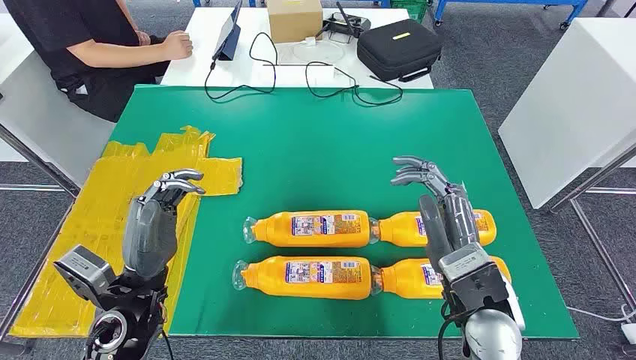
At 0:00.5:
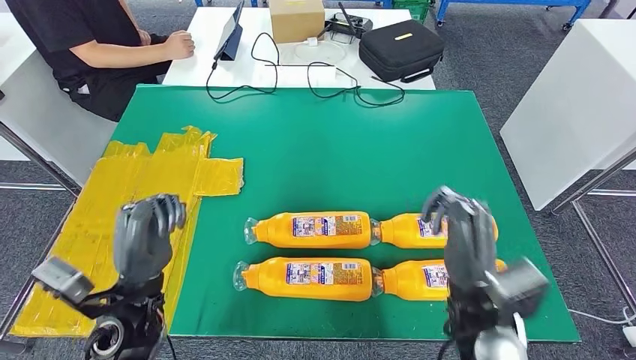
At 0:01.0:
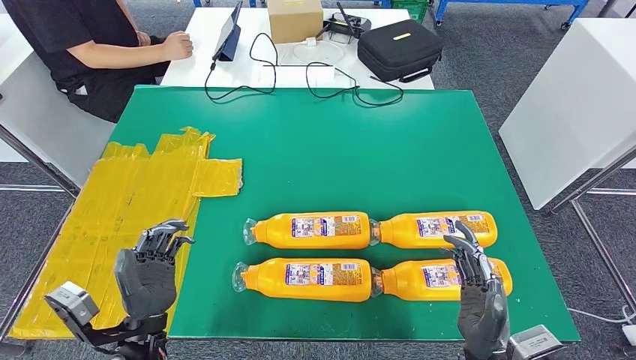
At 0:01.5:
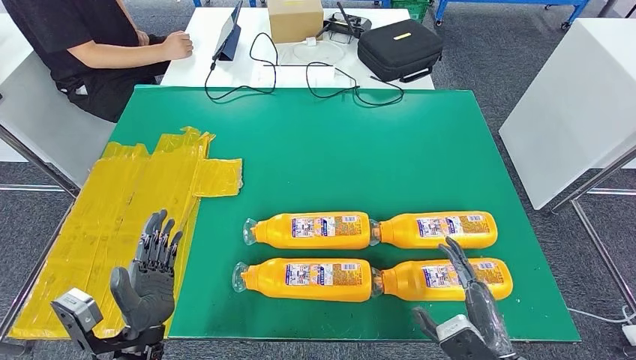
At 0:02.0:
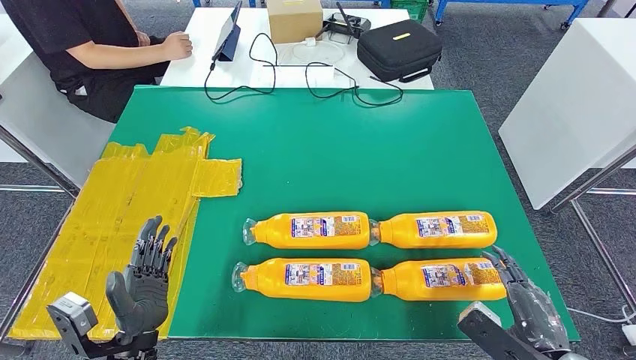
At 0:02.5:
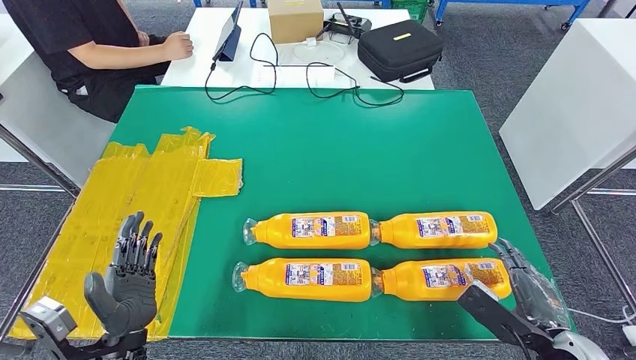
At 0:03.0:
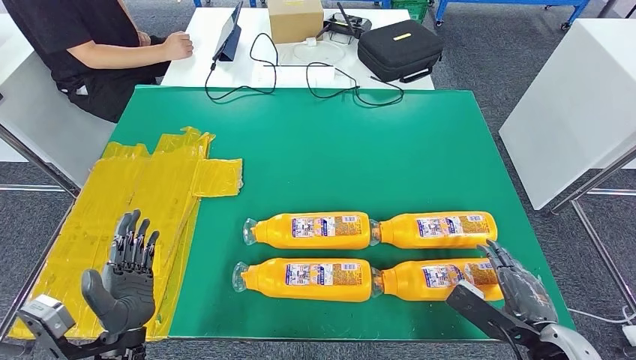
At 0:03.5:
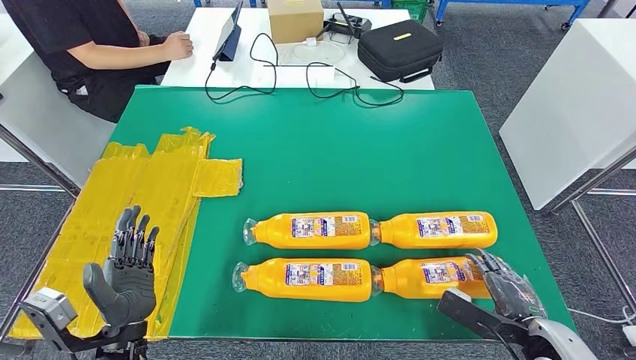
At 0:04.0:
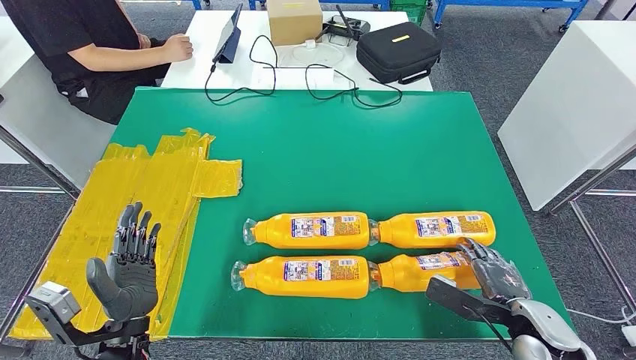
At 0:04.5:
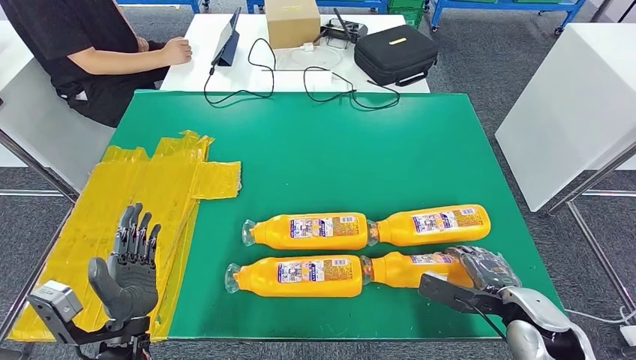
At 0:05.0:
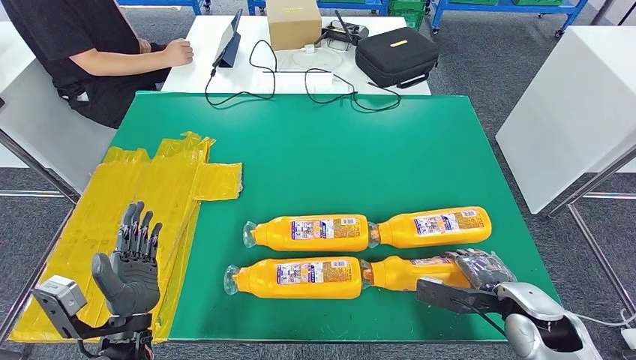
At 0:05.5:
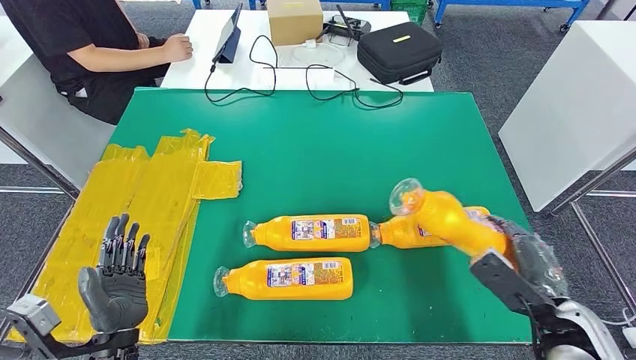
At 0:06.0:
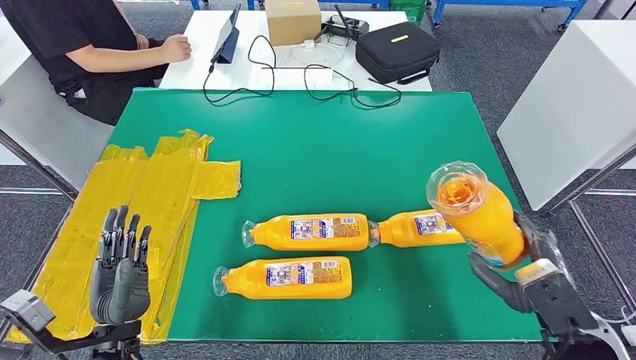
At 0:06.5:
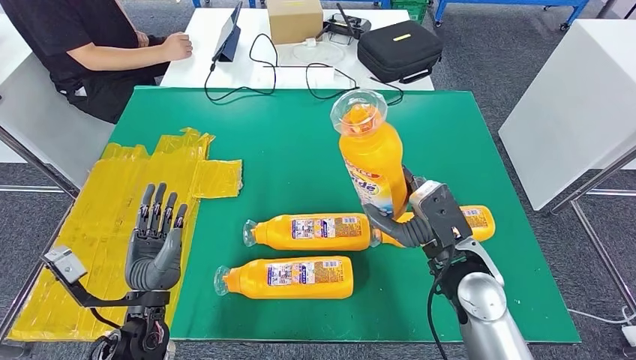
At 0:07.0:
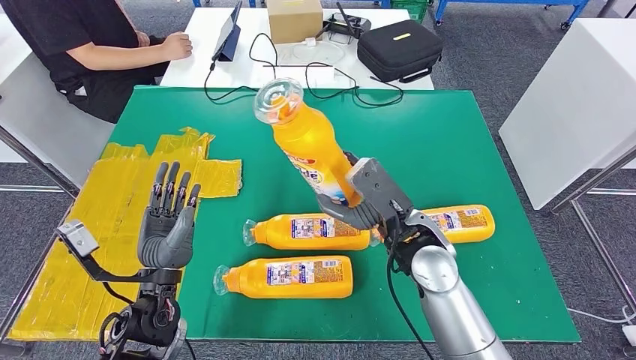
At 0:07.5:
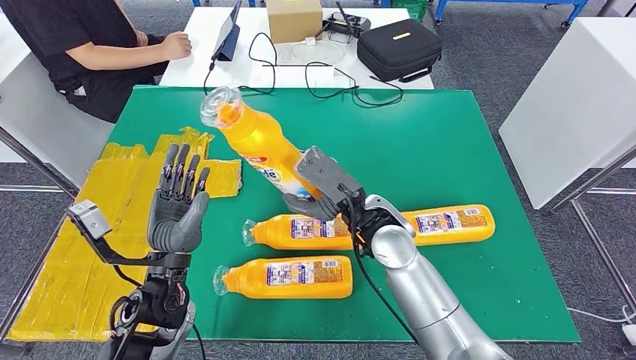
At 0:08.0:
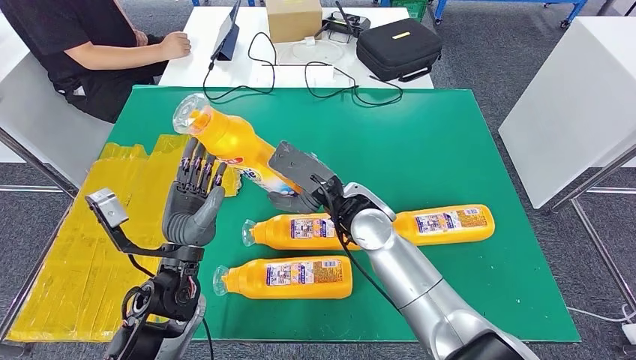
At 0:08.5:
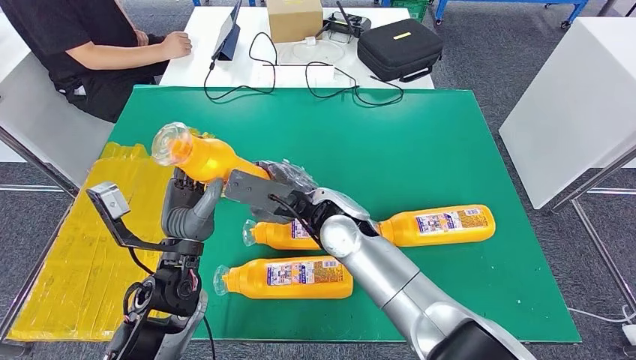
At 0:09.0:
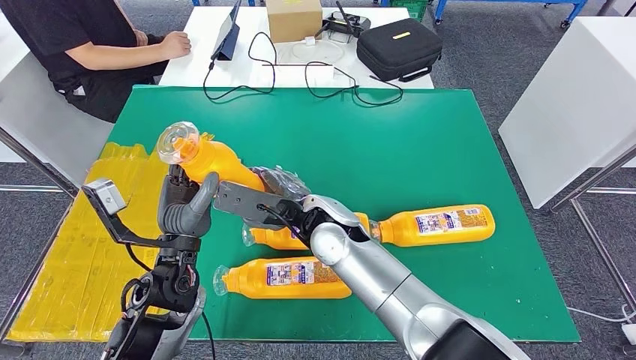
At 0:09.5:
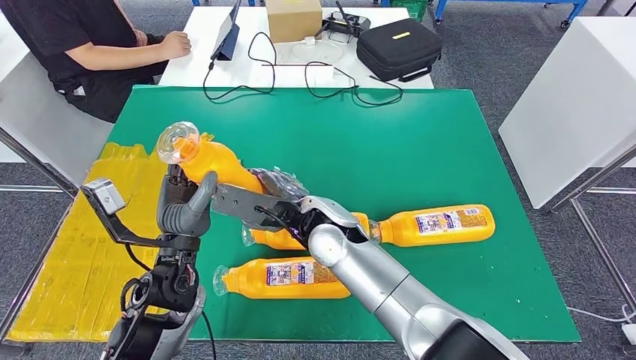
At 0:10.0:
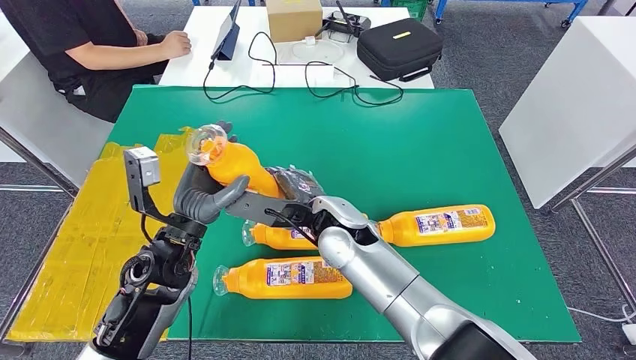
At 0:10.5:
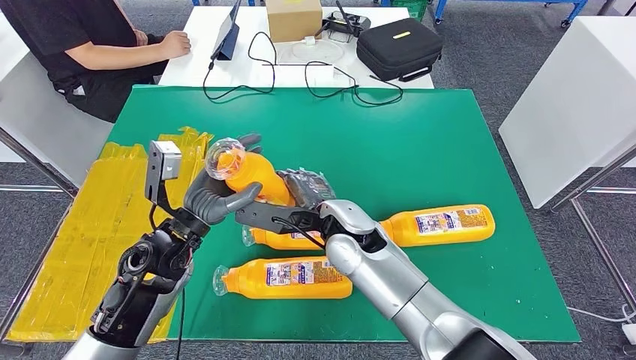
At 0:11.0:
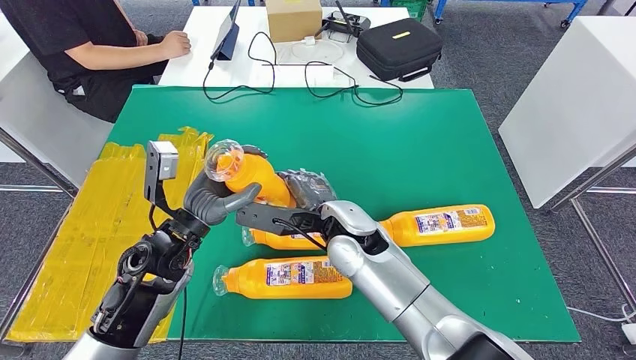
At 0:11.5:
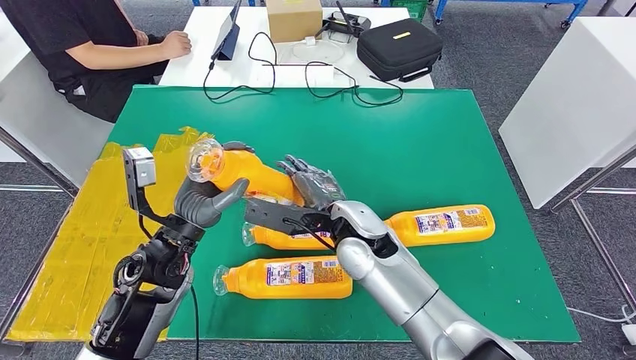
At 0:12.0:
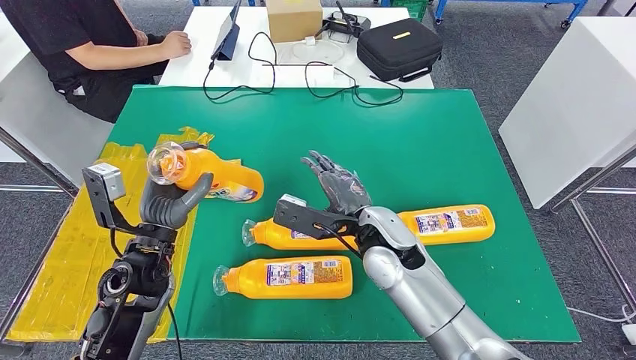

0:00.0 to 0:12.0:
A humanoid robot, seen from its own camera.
Step, 0:00.0 to 0:05.5: Take the fast-moving consumer goods bottle from the table.
0:02.0 to 0:04.0: The right hand moves forward, about 10 cm.
0:04.0 to 0:06.0: The right hand goes approximately 10 cm upward.
0:08.0 to 0:10.0: The right hand changes place by about 5 cm.
0:10.0 to 0:12.0: The right hand moves to the right, approximately 10 cm, while the left hand shifts by about 5 cm.

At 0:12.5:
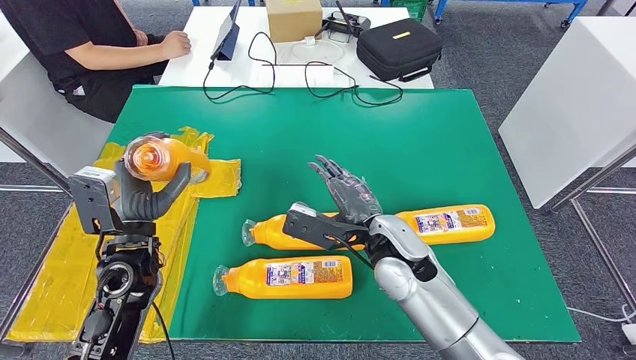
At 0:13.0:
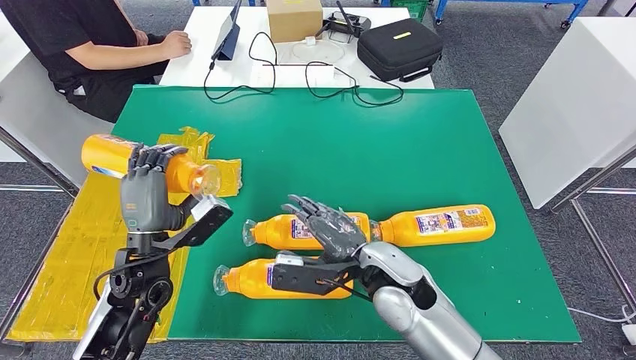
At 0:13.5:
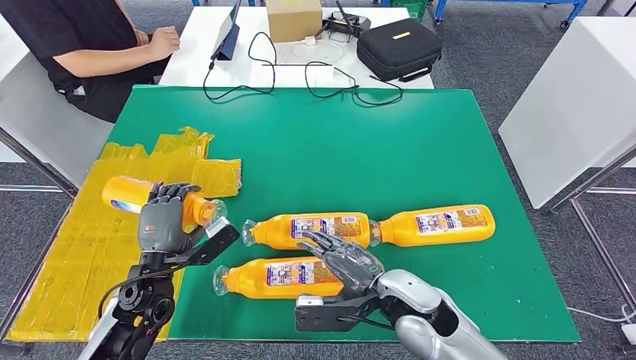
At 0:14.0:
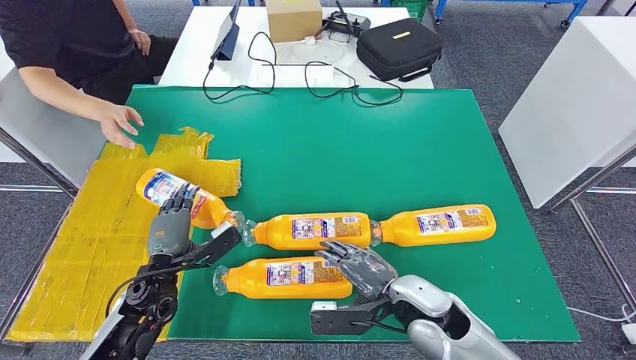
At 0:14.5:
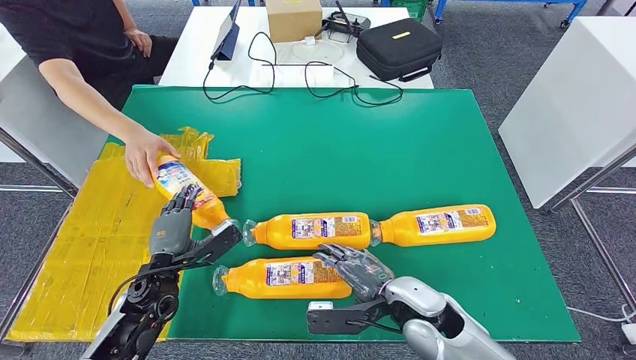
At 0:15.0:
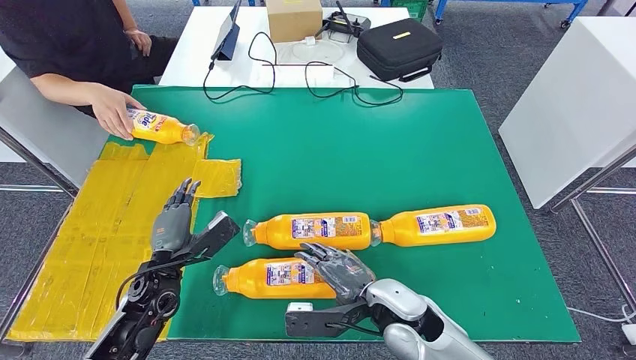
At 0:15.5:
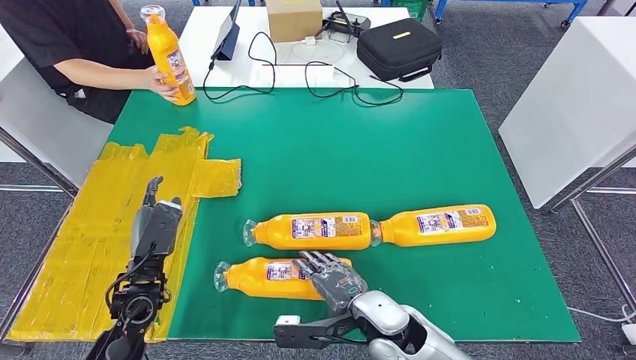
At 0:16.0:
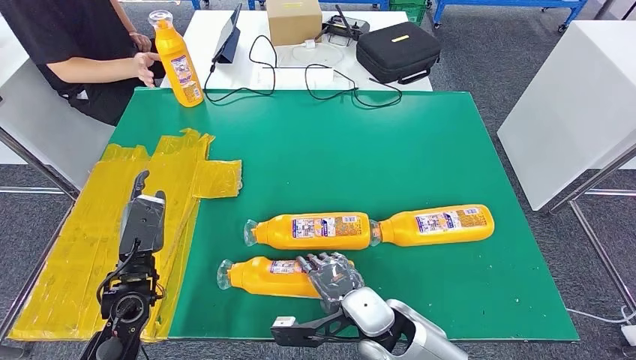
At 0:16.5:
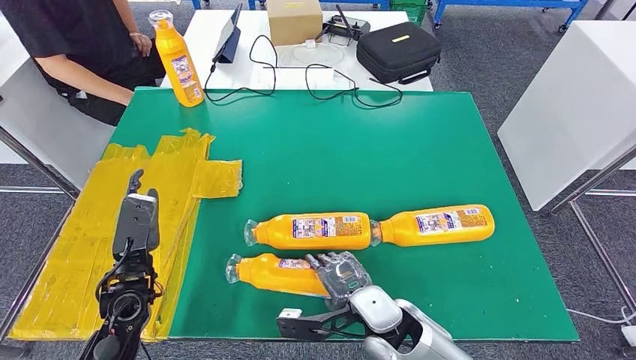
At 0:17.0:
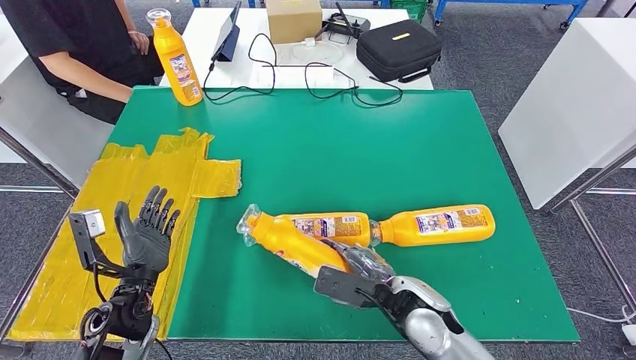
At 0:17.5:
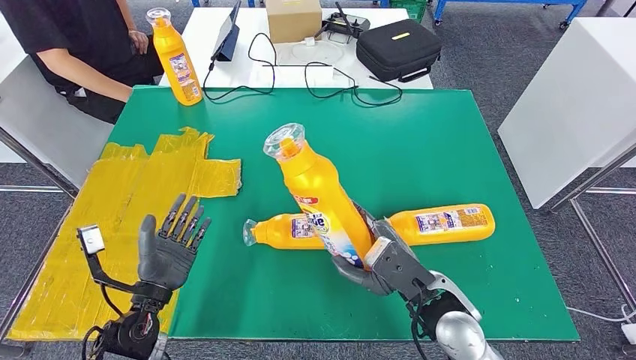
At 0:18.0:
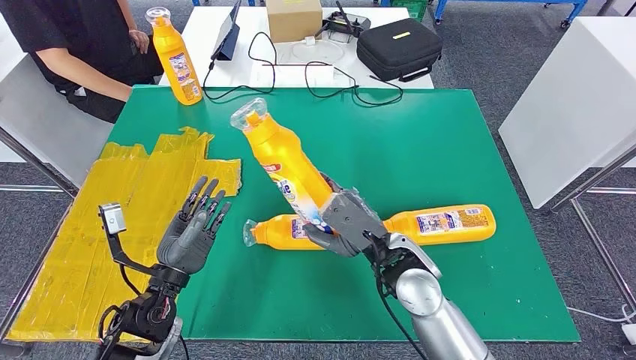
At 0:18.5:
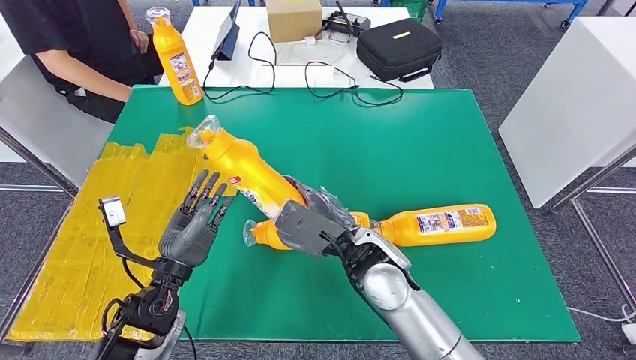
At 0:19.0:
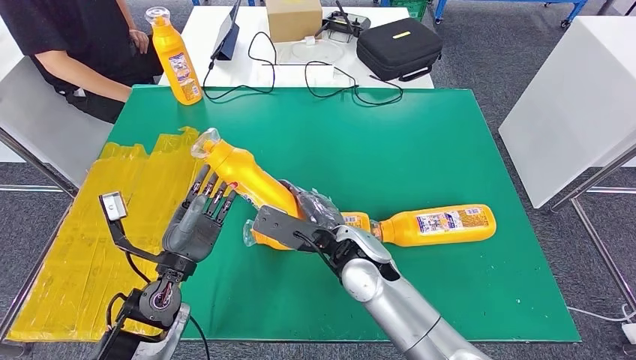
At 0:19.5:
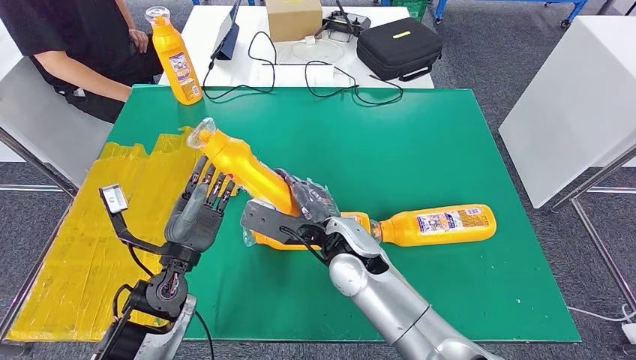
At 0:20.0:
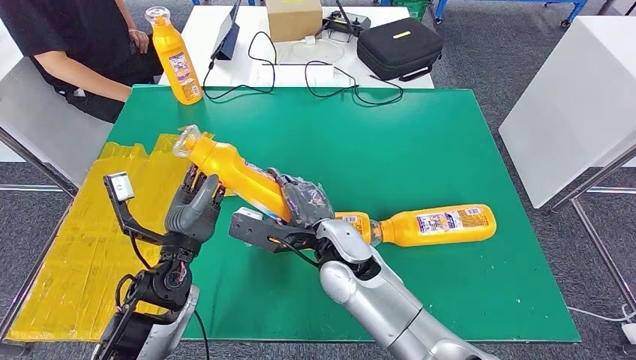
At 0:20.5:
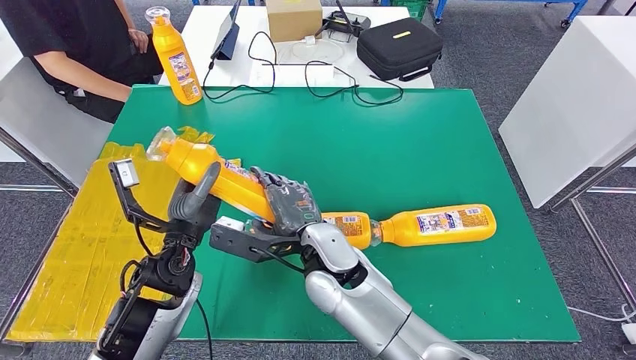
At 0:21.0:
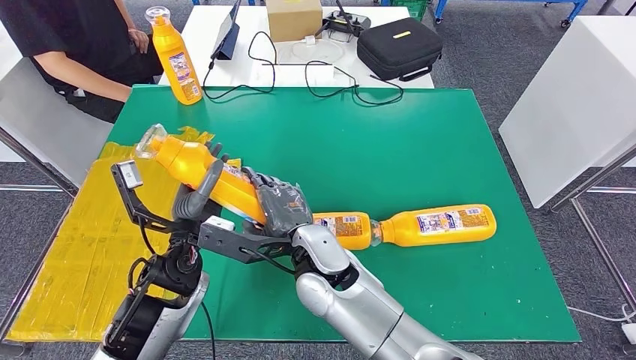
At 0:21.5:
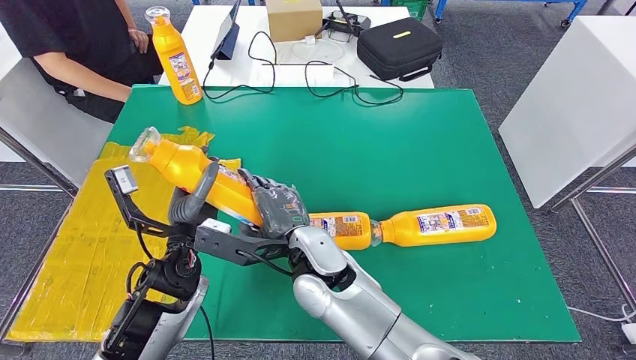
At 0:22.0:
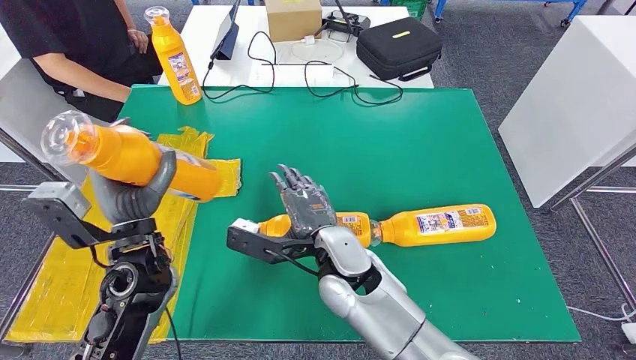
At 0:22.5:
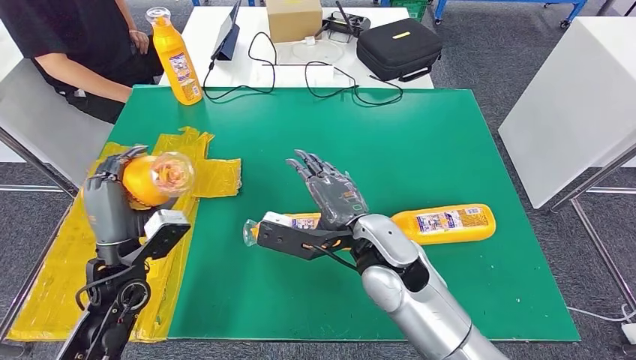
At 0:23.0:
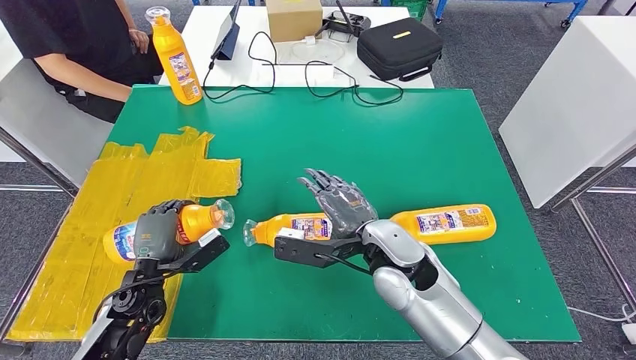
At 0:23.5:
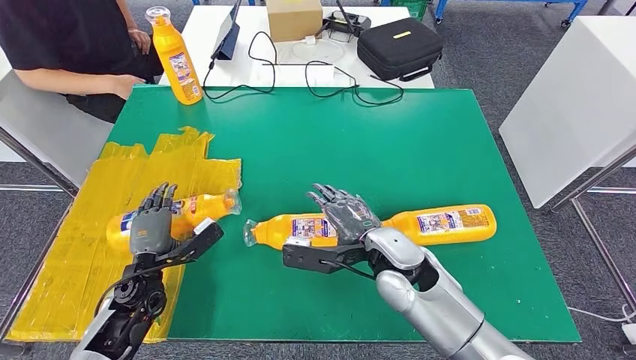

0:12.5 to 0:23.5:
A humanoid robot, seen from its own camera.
Step, 0:13.5 to 0:19.0: Pick up the fast-moving consumer goods bottle from the table.
0:18.0 to 0:20.0: The left hand shifts by roughly 5 cm; the right hand moves to the left, some 10 cm.
0:20.0 to 0:21.5: The hands stay close to where they were, moving slightly.
